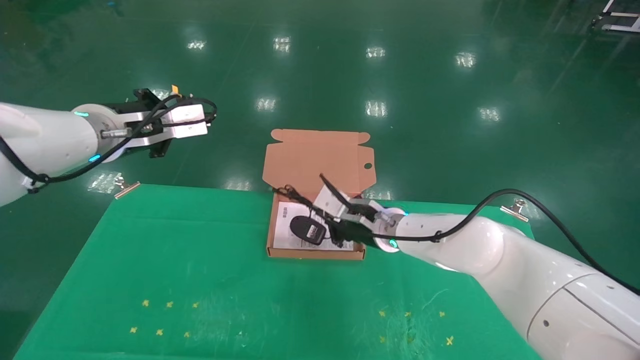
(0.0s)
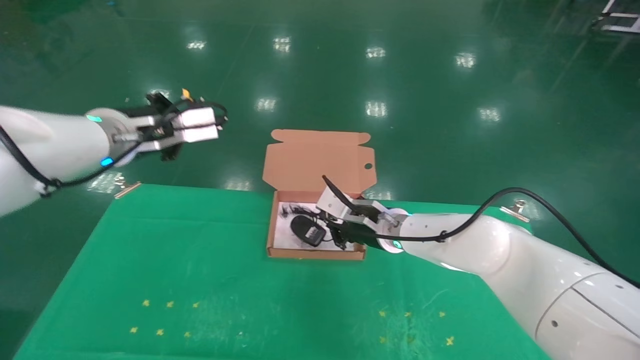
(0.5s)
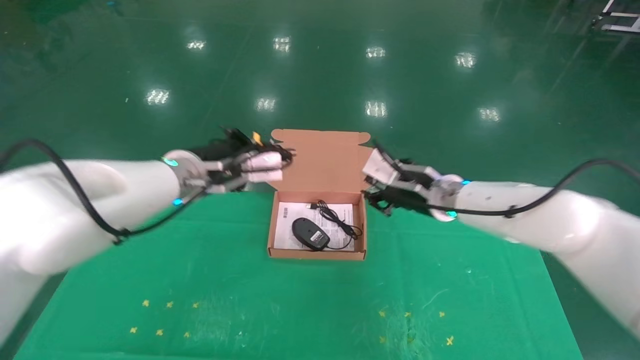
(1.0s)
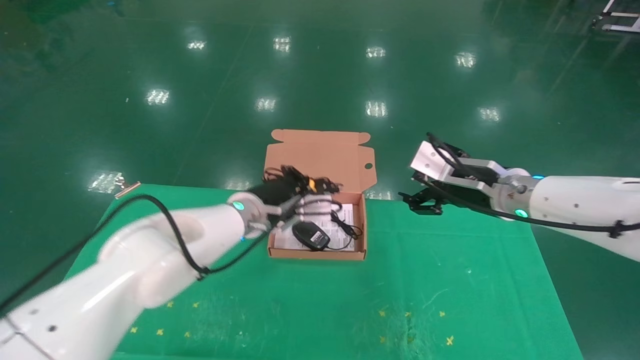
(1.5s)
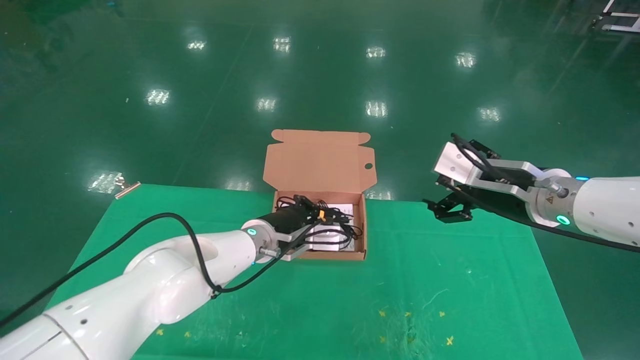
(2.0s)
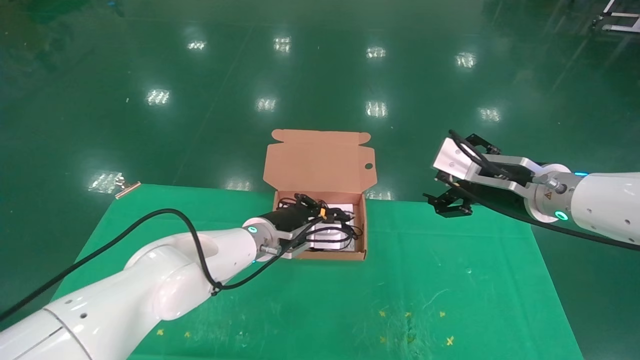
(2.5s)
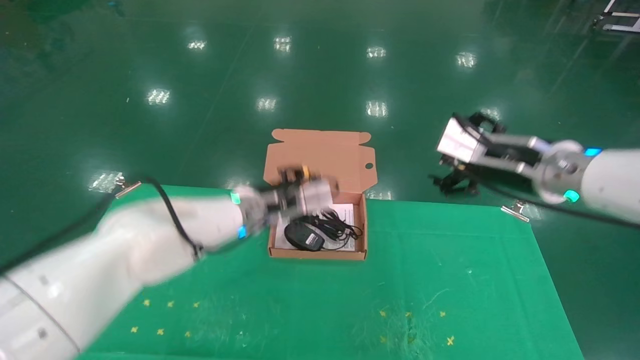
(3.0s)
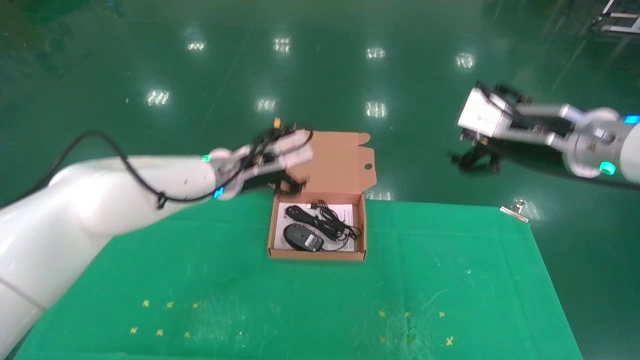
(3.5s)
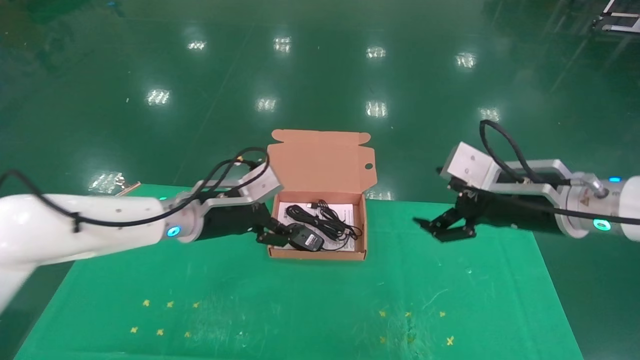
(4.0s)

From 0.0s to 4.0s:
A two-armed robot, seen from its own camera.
Task of the whole recording: grasp data cable left put into box grasp mouse right put into box.
Step, from 0.0s to 2.5s: Place the mouse and power cord into the box.
From 0.0s to 2.0s: The right gripper shifts some 20 cm to the right, backward and upward, and opens its fingers, while the left gripper is displaced downward and to the right by approximately 25 cm.
From 2.0s to 4.0s: The left gripper travels to the left and upward by some 10 cm, and opens up.
